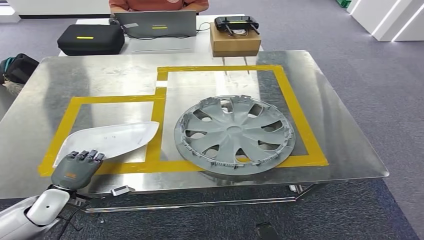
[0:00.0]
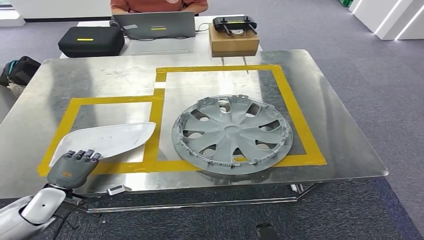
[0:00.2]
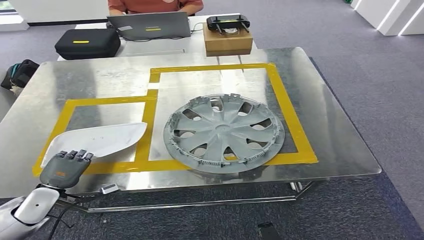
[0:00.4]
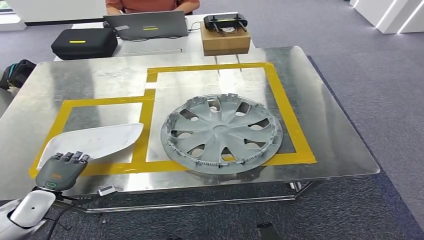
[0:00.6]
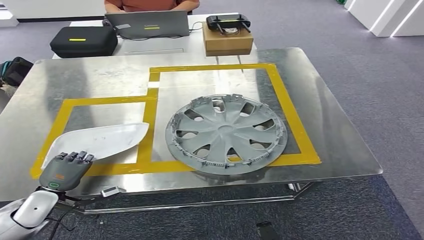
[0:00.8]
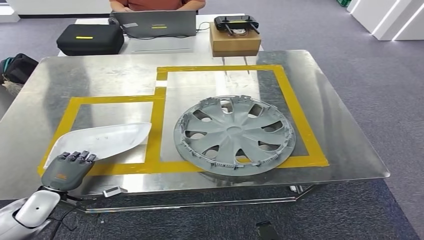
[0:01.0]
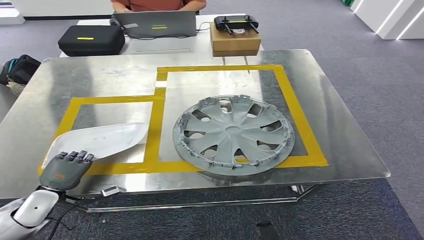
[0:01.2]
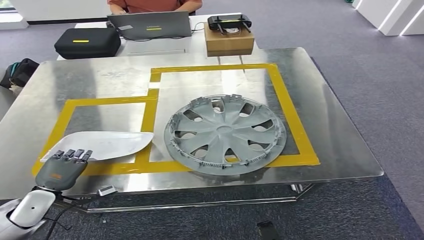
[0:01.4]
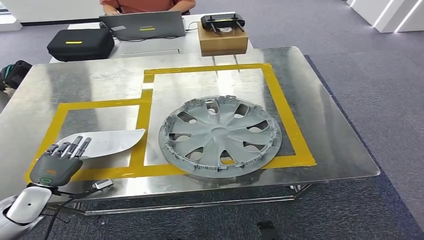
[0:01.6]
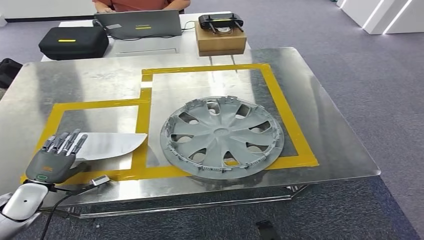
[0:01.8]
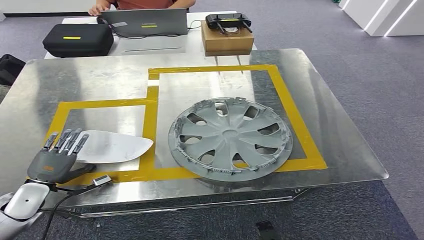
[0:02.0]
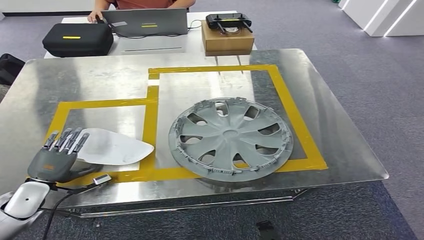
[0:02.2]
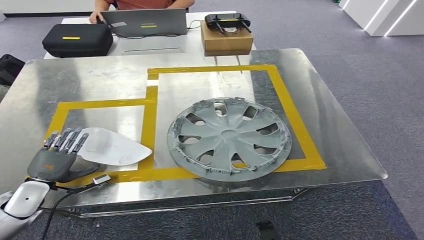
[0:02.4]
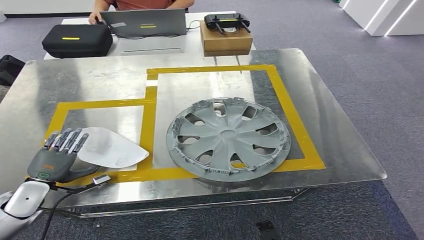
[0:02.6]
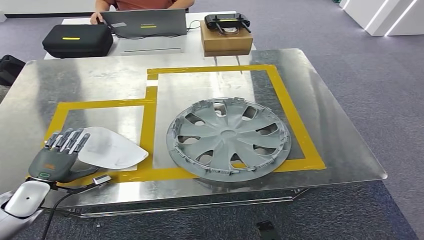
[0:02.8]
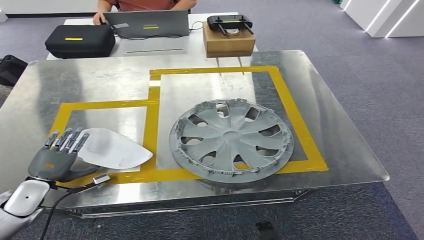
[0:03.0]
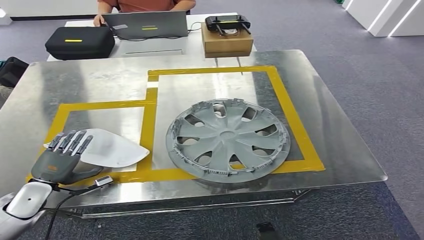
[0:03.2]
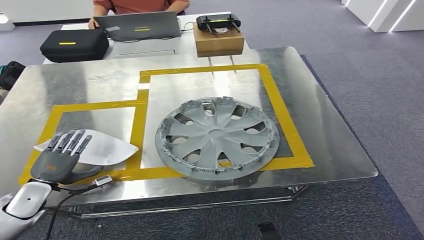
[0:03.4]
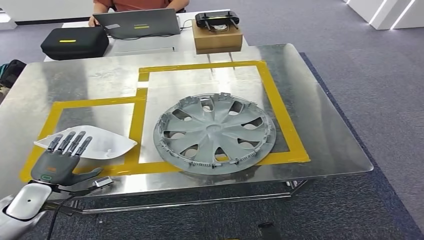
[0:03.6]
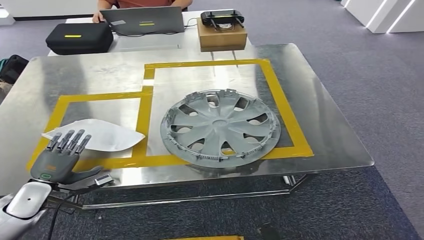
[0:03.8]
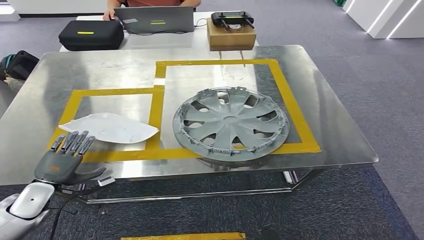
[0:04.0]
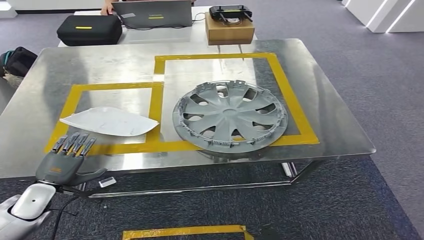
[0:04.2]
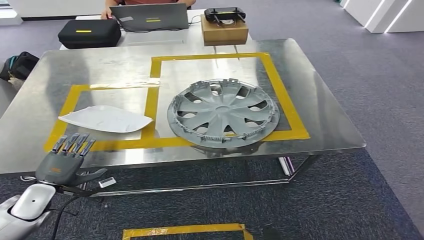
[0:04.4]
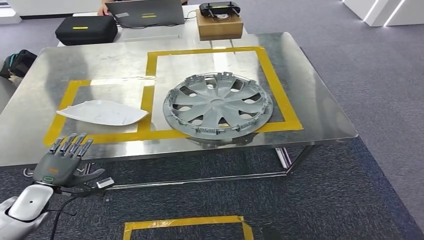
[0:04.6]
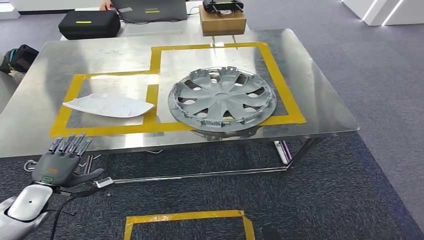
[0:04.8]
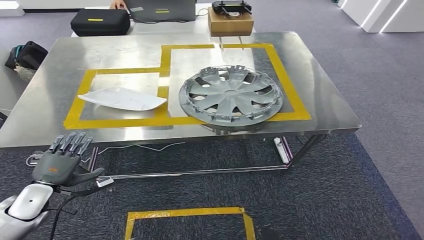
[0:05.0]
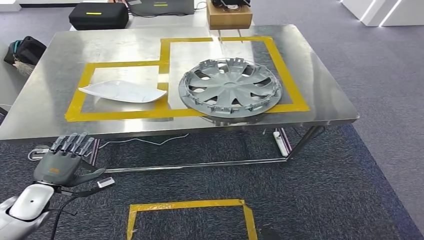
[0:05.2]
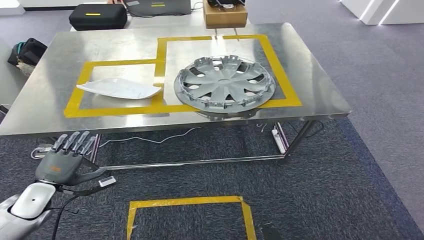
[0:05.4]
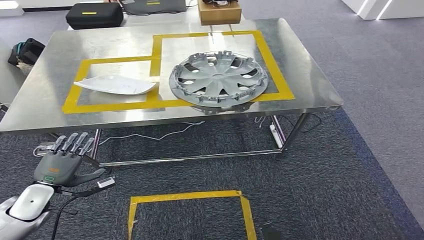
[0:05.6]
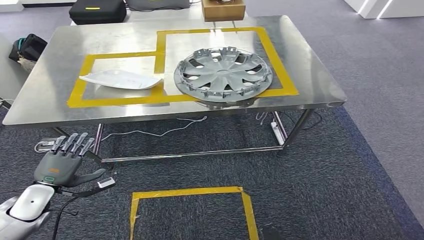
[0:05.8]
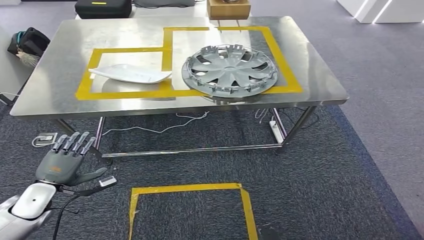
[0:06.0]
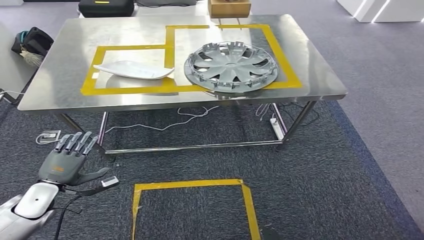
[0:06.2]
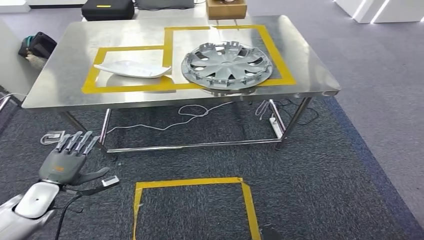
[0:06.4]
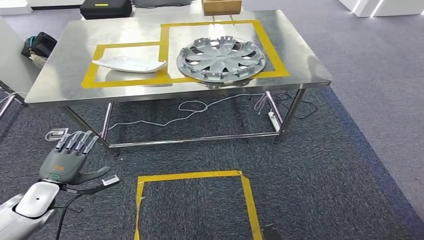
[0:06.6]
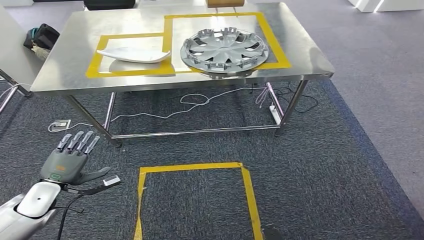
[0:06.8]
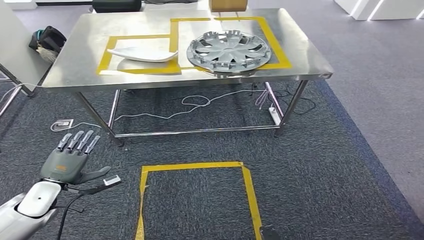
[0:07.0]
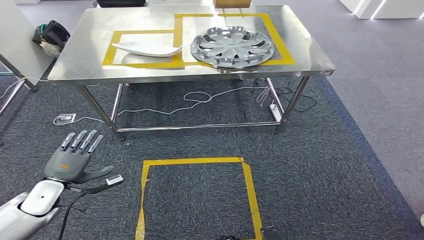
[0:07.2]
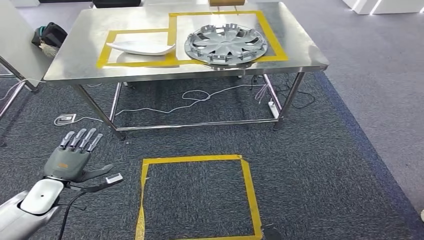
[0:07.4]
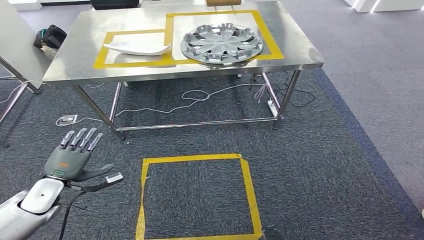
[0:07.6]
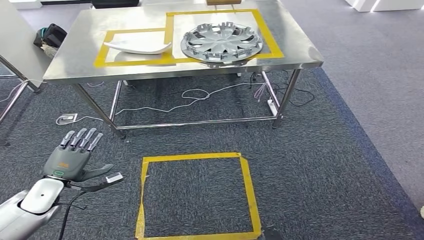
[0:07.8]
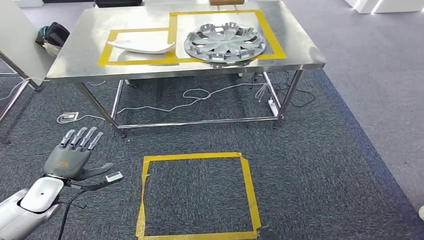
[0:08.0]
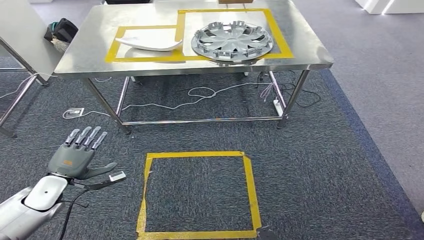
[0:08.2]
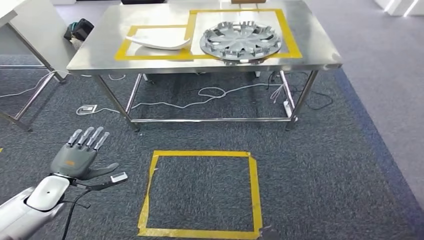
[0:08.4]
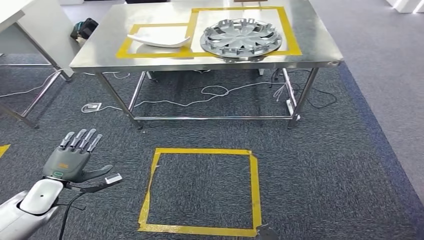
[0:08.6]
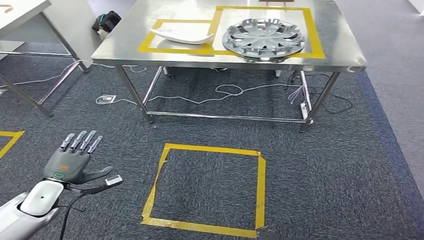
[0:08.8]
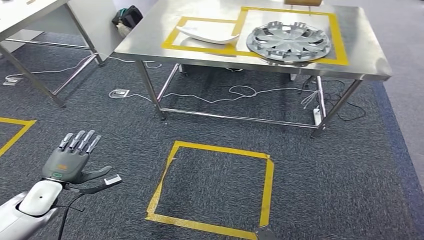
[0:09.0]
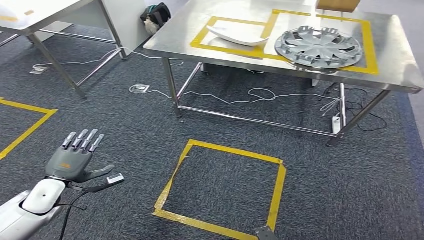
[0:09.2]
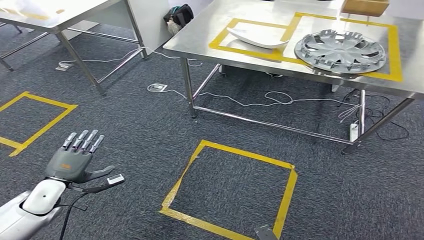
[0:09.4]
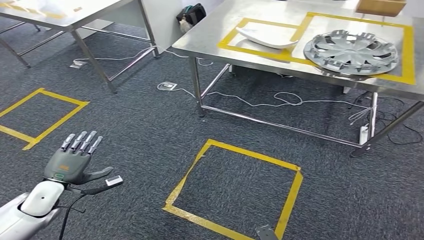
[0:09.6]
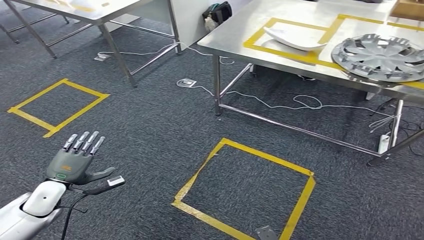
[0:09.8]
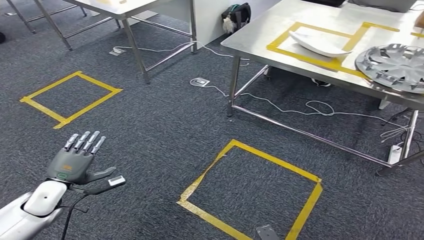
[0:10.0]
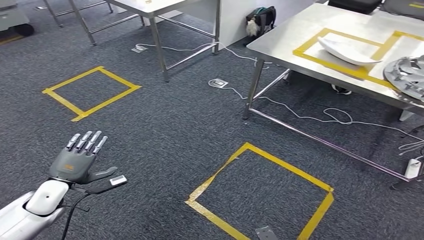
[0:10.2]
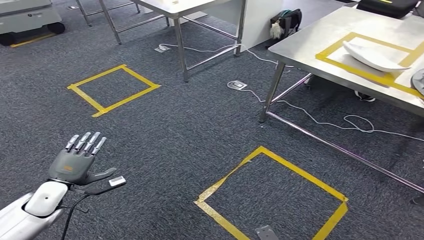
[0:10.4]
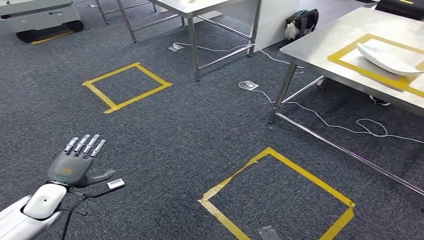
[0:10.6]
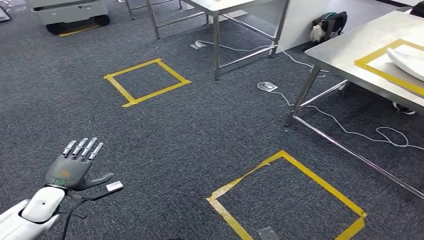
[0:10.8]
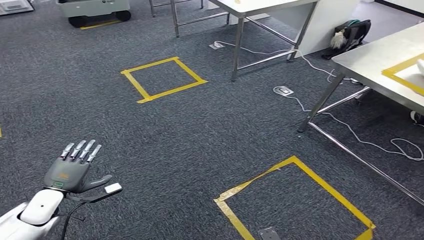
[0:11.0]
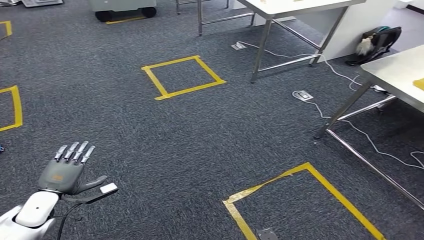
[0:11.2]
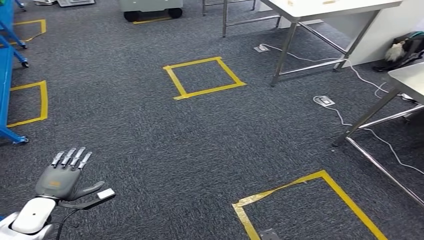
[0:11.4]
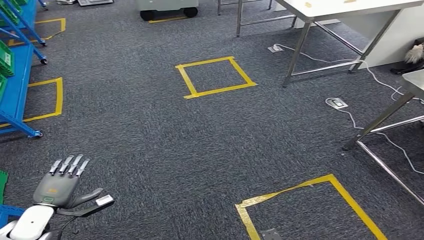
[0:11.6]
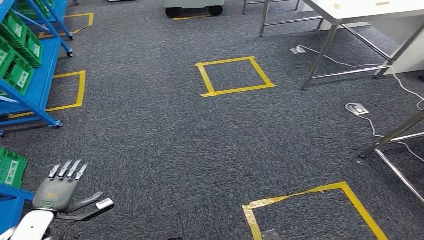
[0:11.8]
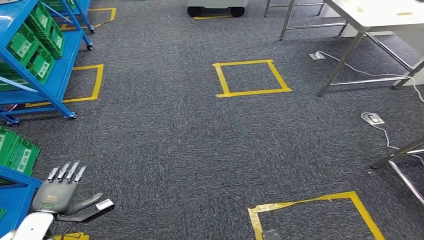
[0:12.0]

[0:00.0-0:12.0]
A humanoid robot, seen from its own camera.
Step, 0:00.0 to 0:04.0: Insert the small component into the corresponding slot on the workbench.

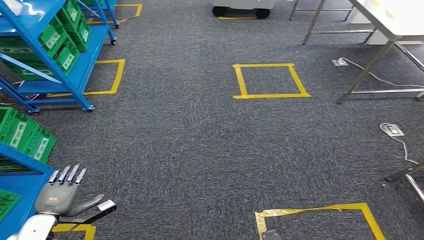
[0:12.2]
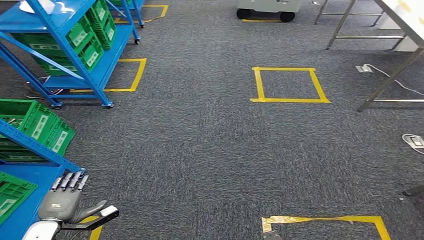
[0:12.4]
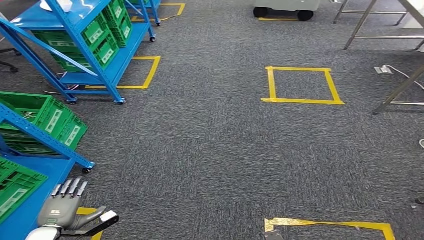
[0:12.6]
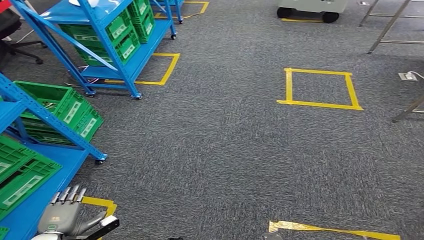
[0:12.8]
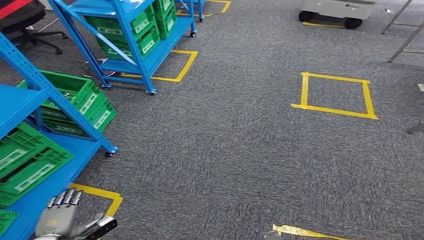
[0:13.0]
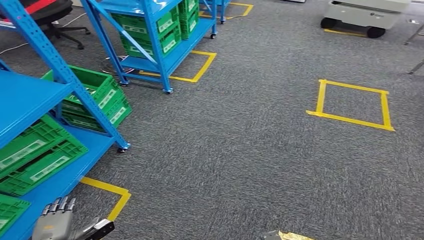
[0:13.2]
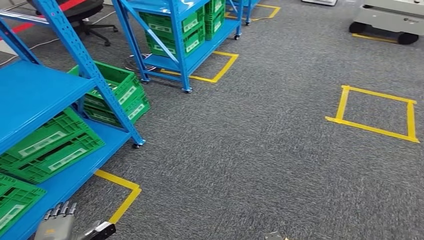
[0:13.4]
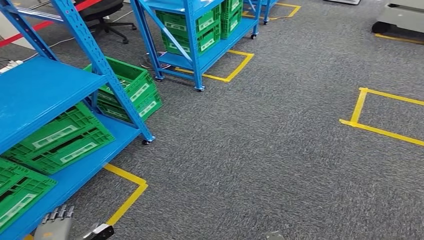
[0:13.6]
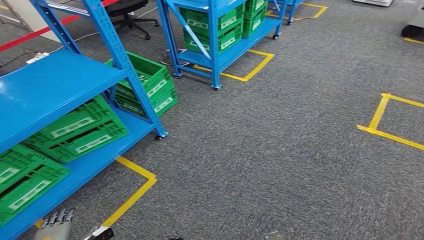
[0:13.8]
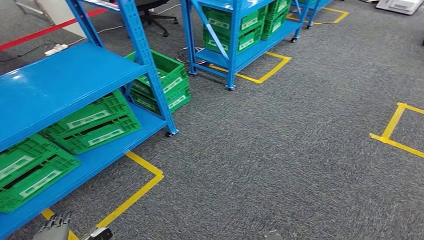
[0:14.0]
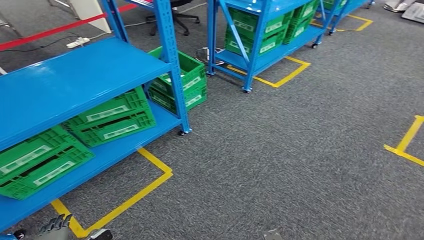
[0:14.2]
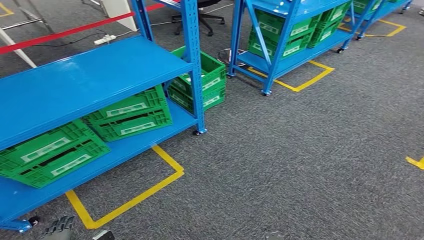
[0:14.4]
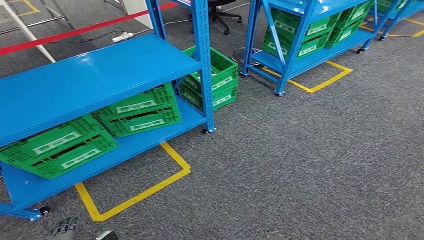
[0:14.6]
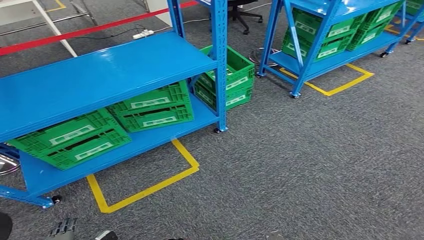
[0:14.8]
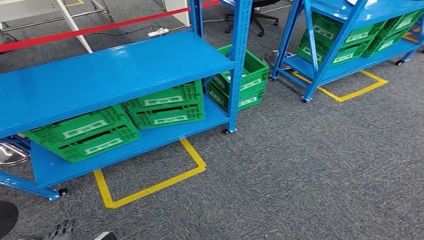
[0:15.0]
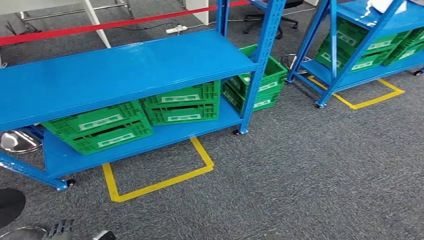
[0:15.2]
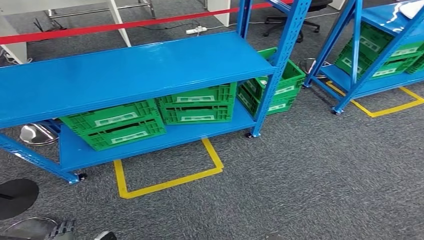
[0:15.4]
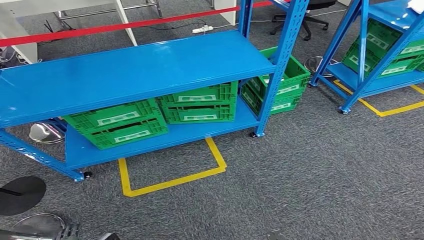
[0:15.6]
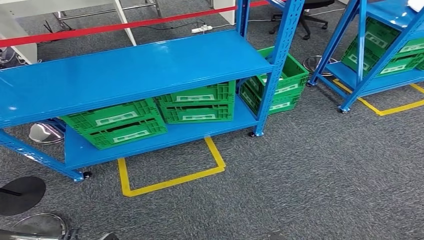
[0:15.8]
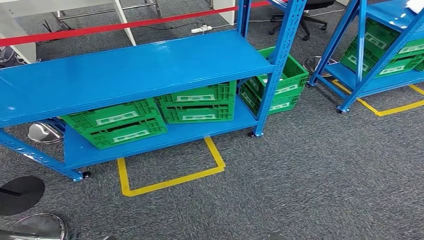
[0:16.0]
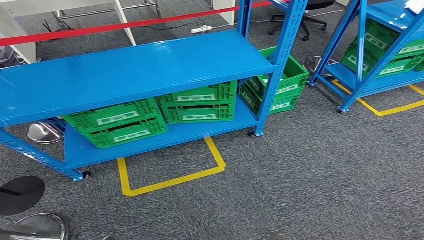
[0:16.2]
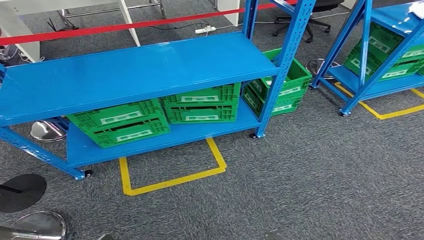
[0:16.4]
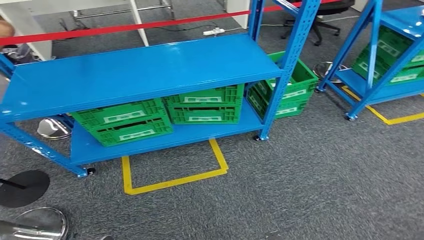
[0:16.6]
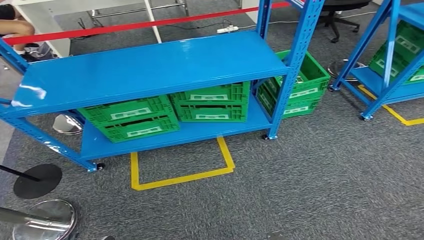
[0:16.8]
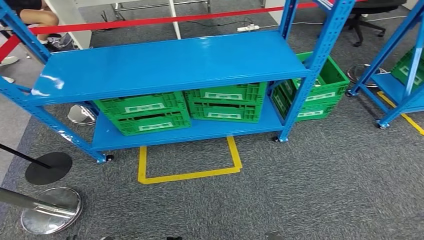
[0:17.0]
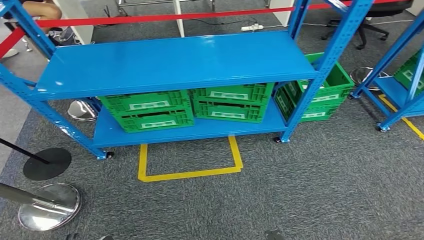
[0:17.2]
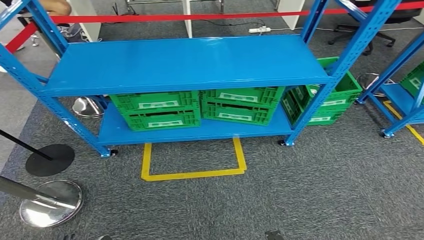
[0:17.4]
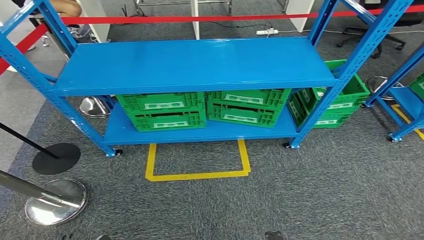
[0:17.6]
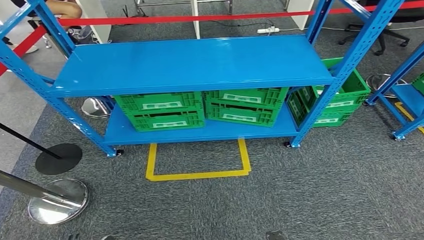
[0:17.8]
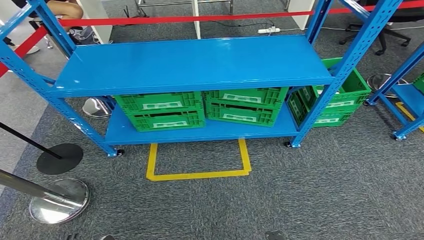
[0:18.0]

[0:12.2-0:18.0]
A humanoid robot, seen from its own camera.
Step, 0:12.2 to 0:18.0: Move to the initial position at the workbench.
